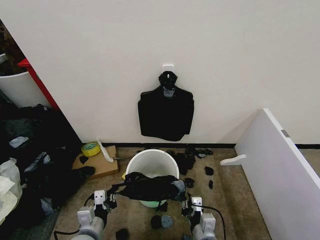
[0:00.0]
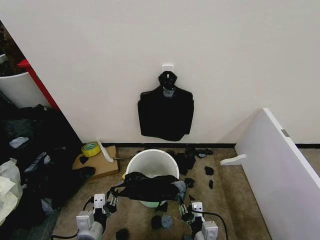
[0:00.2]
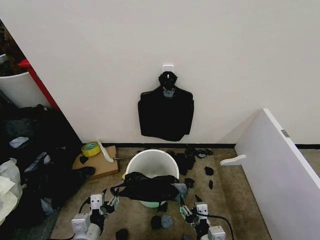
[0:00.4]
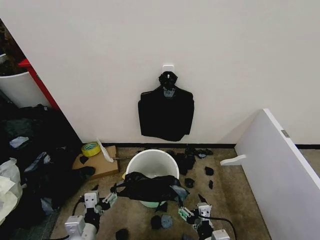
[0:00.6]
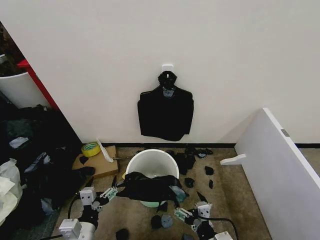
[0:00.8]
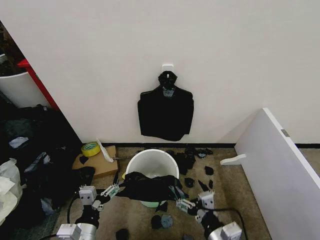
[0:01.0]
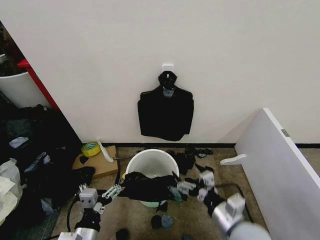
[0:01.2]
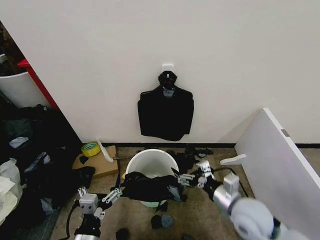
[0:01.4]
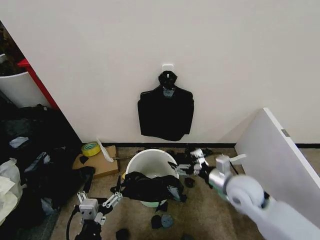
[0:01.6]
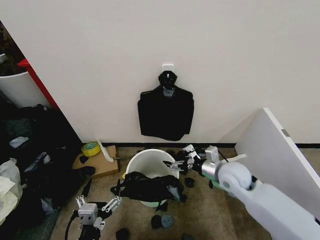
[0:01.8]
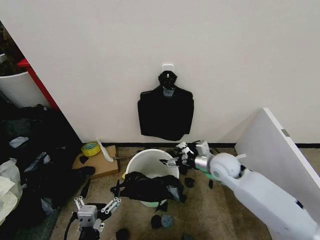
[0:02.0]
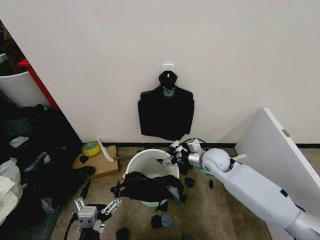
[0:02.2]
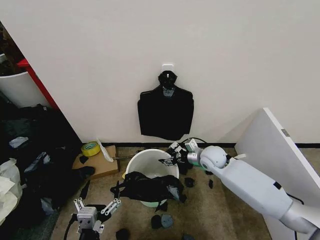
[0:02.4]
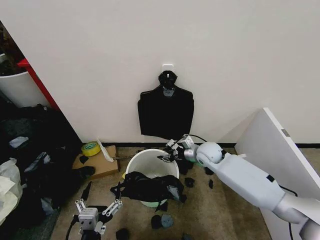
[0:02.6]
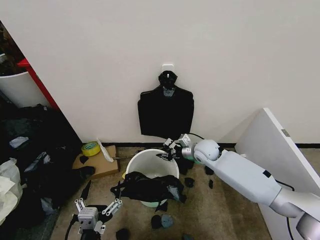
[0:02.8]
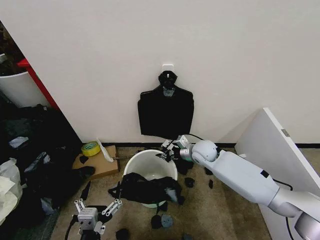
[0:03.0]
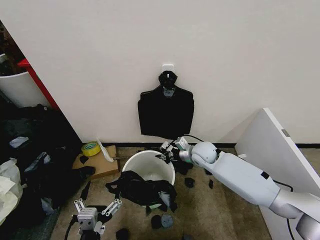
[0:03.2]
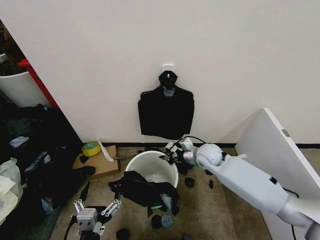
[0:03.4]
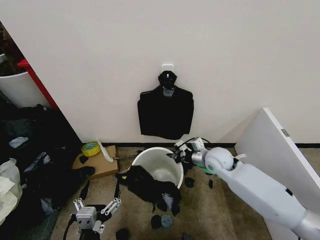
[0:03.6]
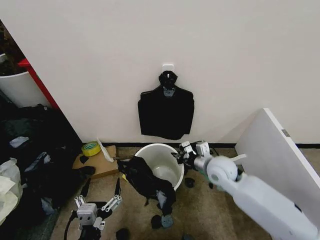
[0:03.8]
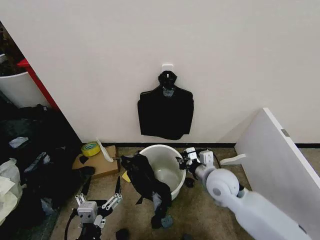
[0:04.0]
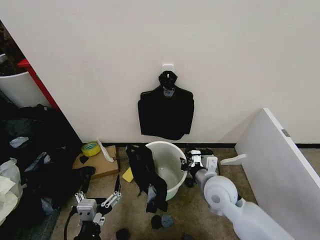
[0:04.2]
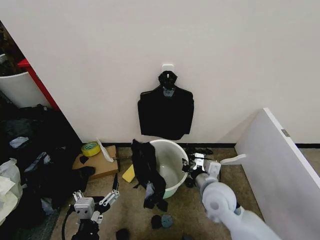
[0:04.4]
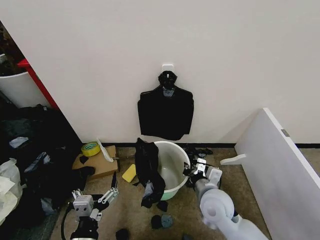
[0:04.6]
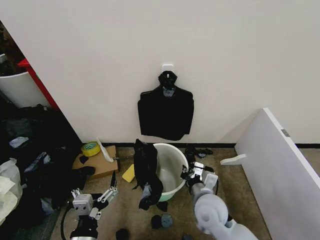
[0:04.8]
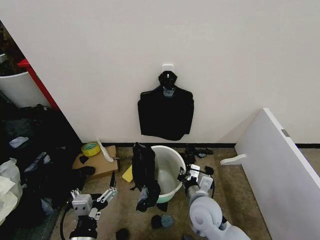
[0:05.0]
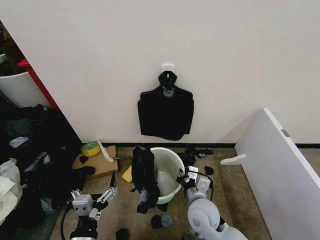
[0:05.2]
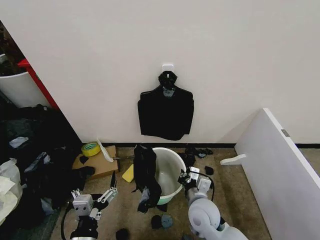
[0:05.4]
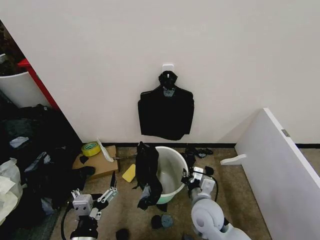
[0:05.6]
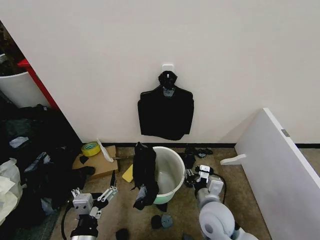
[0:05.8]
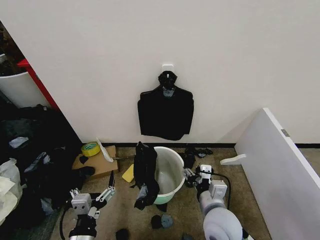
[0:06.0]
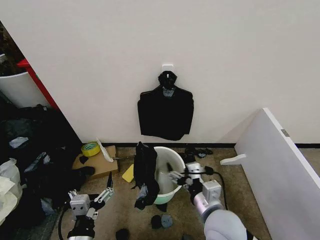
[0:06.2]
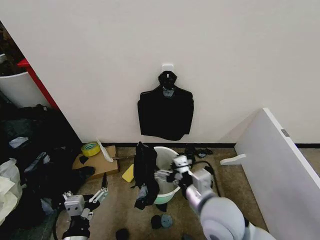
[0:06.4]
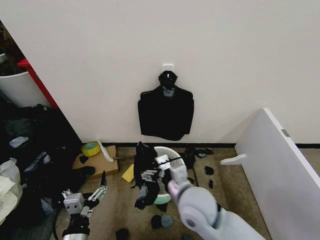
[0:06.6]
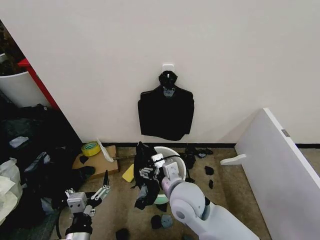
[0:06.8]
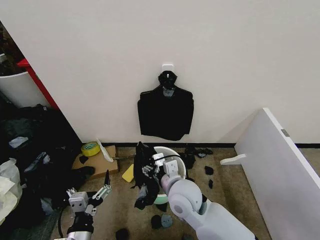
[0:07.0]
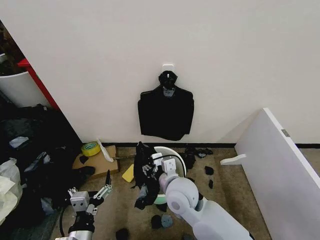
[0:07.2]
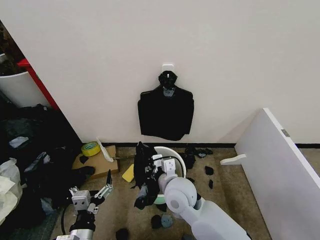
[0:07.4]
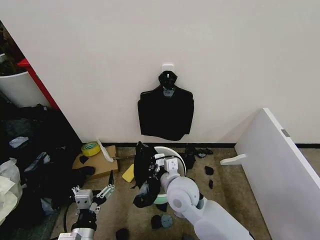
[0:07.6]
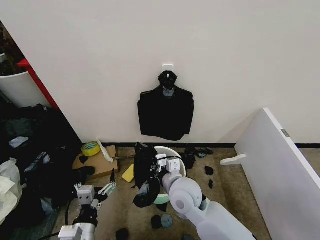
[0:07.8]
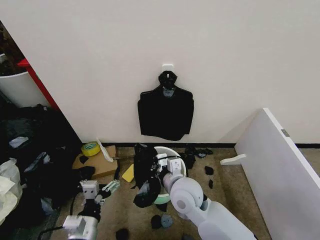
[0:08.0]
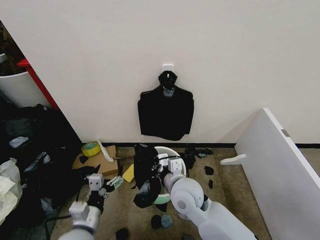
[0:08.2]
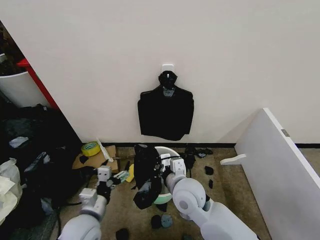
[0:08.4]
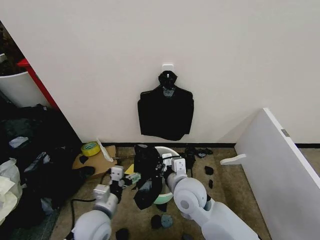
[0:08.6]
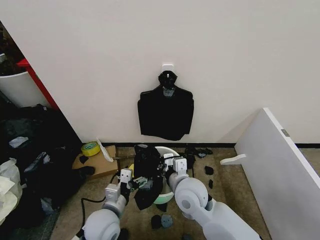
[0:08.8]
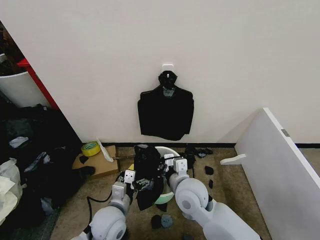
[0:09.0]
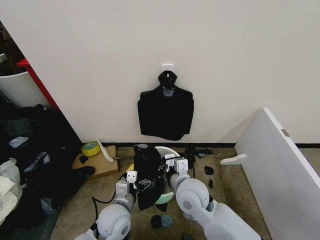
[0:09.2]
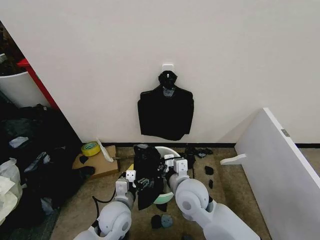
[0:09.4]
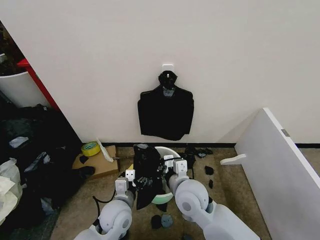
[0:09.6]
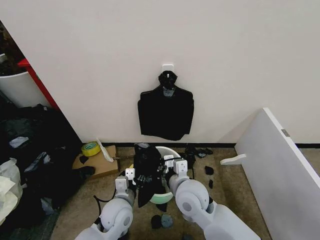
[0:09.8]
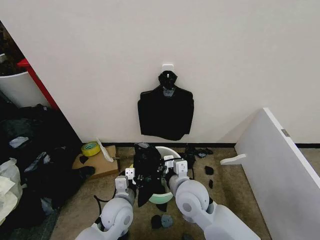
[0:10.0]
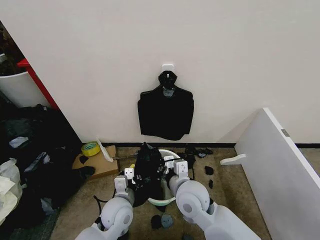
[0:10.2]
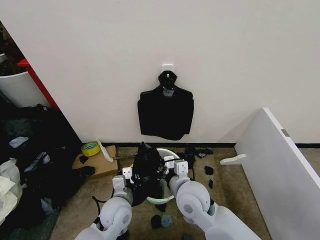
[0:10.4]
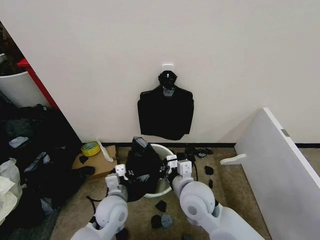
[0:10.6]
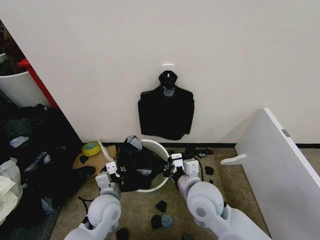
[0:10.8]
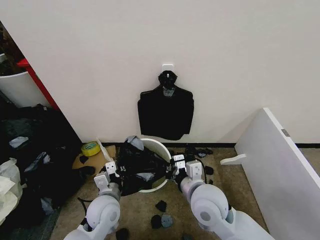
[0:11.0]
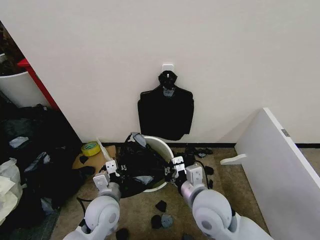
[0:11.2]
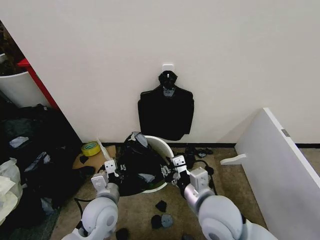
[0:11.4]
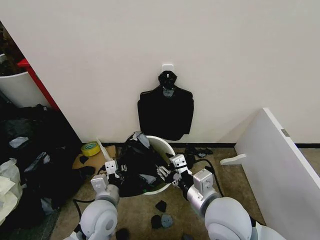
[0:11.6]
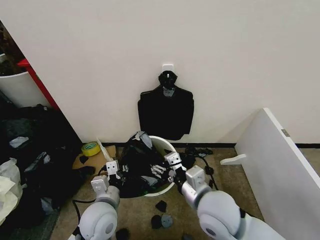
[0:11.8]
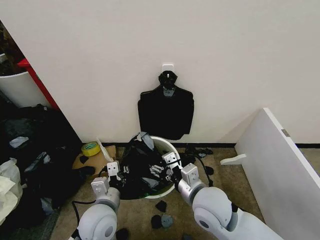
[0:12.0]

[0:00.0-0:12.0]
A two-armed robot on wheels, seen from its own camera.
Task of the whole recording: Place the garbage bag over the trash bin.
0:00.0 to 0:01.6: The right gripper shifts about 25 cm forward, upward and to the right, and opens up. Meanwhile the left gripper moves backward, about 10 cm, and opens its fingers.
0:01.6 to 0:03.0: The right gripper goes about 20 cm forward and to the left, and closes its fingers.
0:03.0 to 0:04.4: The right gripper heads backward, covering roughly 20 cm.
0:04.4 to 0:06.0: The right gripper goes roughly 5 cm backward, and opens.
0:06.0 to 0:07.6: The right gripper shifts about 15 cm to the left and forward, and closes its fingers.
0:07.6 to 0:09.0: The left gripper is displaced forward and to the right by about 15 cm.
0:09.0 to 0:10.4: The left gripper closes.
0:10.4 to 0:12.0: The left gripper goes roughly 5 cm upward. The right gripper opens up.

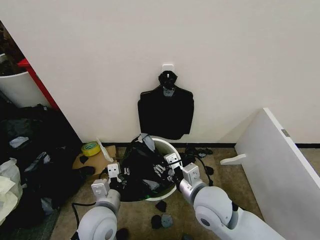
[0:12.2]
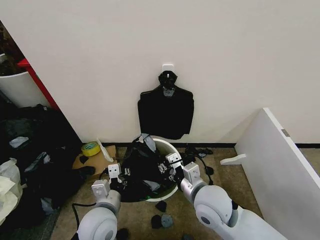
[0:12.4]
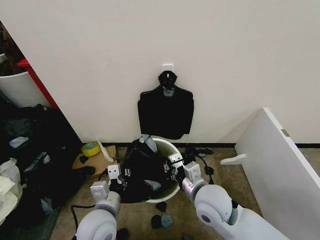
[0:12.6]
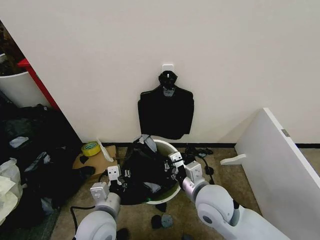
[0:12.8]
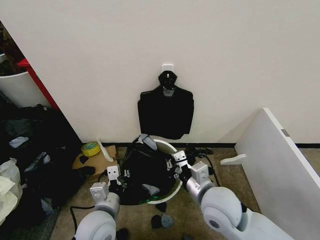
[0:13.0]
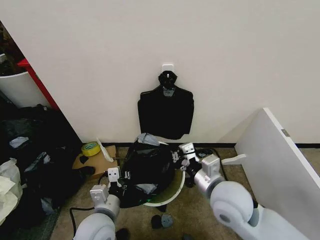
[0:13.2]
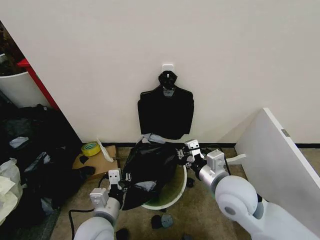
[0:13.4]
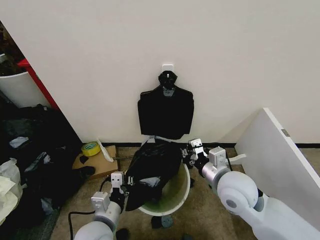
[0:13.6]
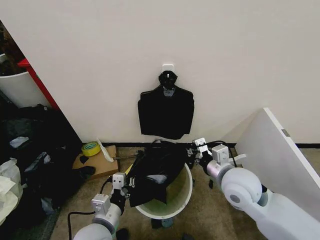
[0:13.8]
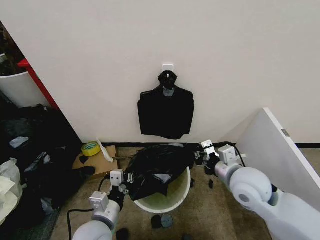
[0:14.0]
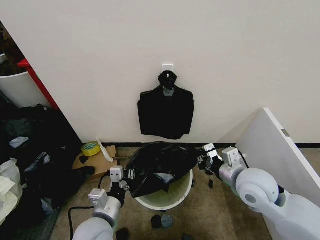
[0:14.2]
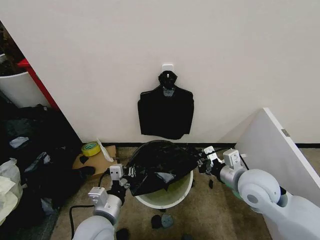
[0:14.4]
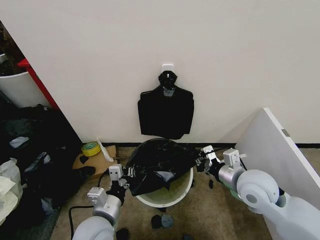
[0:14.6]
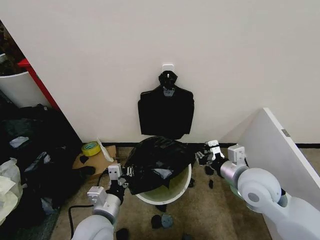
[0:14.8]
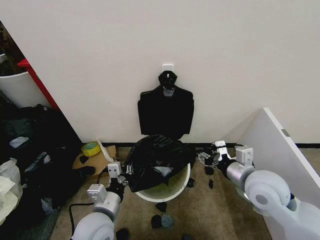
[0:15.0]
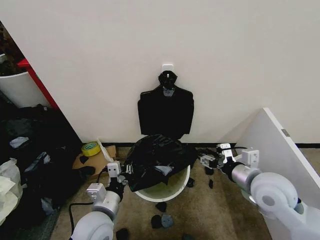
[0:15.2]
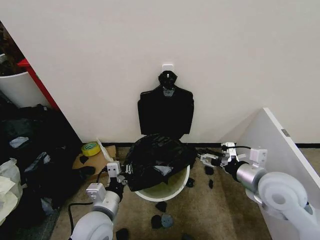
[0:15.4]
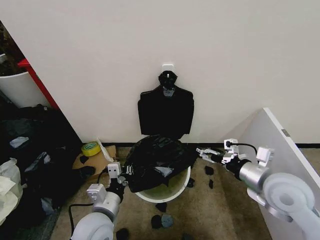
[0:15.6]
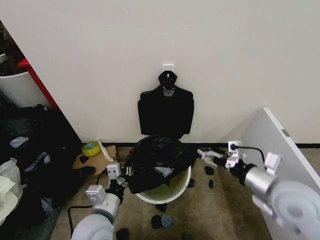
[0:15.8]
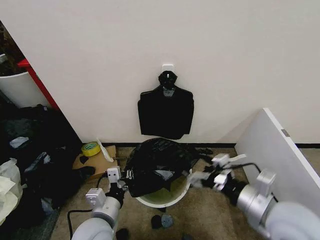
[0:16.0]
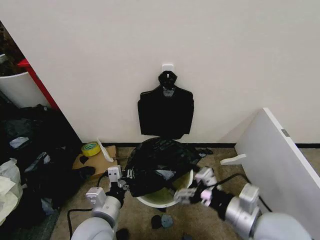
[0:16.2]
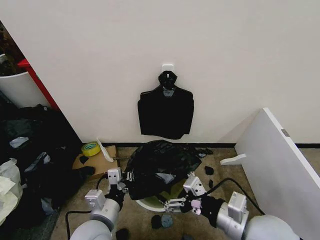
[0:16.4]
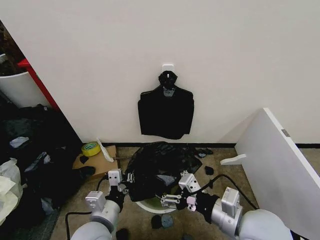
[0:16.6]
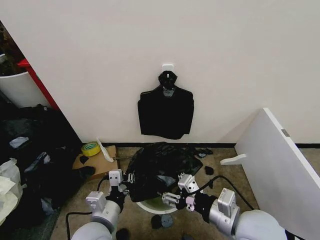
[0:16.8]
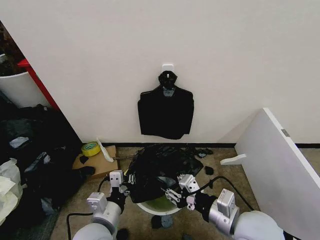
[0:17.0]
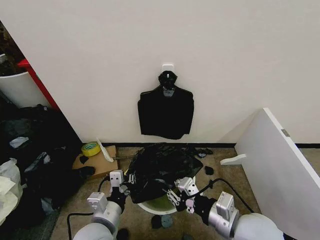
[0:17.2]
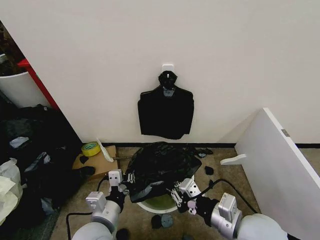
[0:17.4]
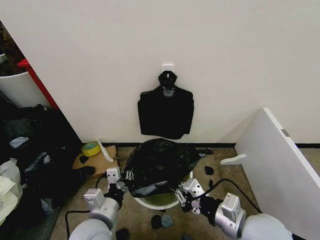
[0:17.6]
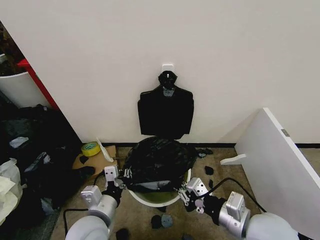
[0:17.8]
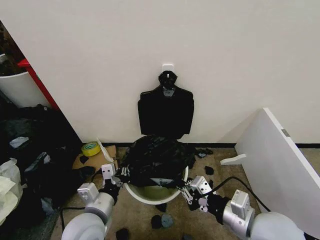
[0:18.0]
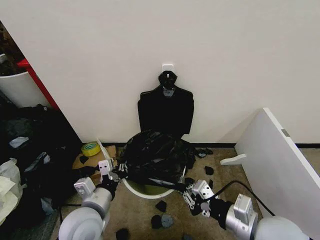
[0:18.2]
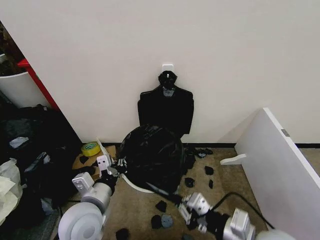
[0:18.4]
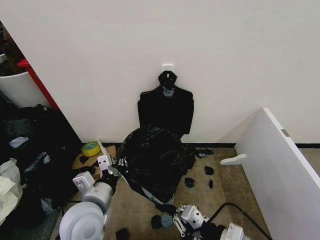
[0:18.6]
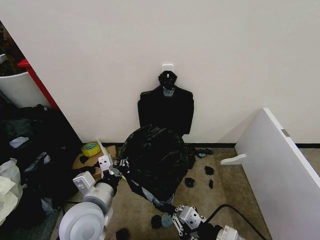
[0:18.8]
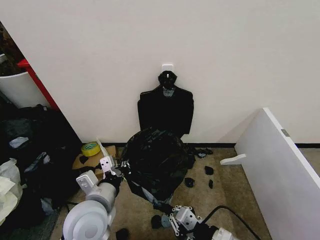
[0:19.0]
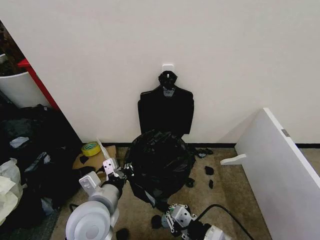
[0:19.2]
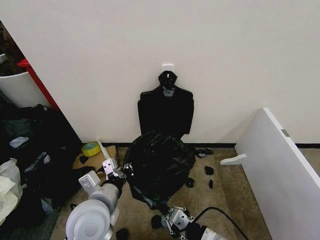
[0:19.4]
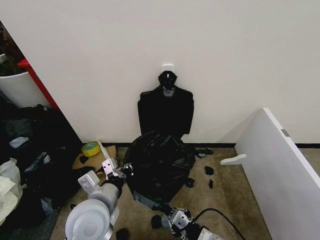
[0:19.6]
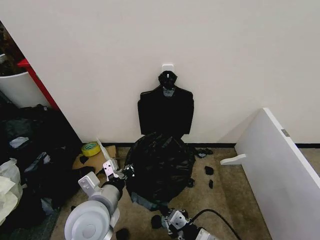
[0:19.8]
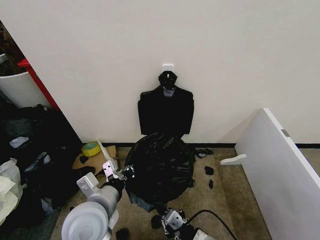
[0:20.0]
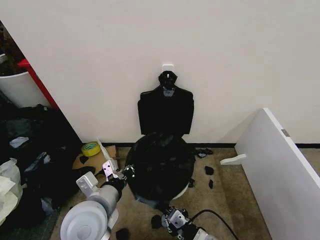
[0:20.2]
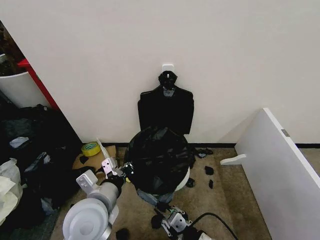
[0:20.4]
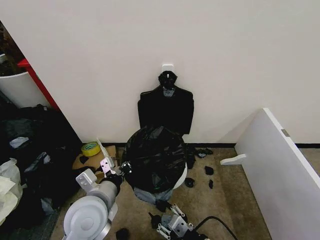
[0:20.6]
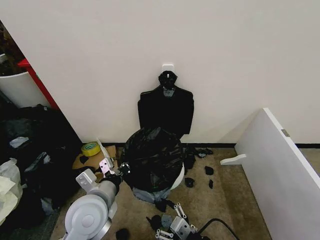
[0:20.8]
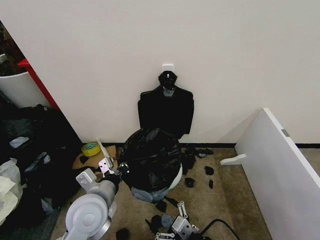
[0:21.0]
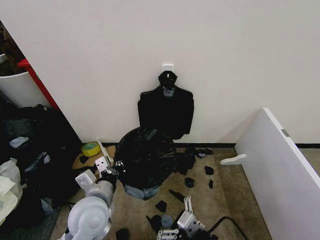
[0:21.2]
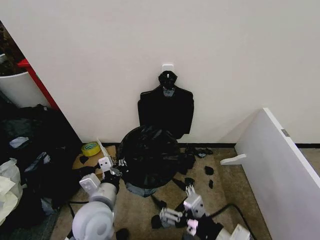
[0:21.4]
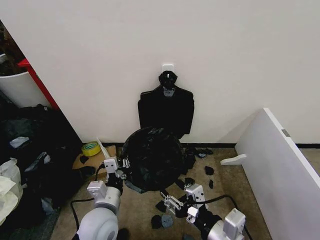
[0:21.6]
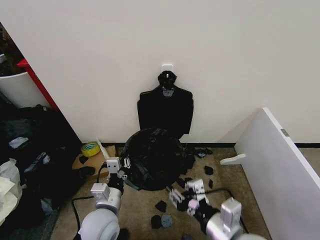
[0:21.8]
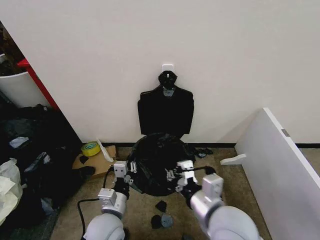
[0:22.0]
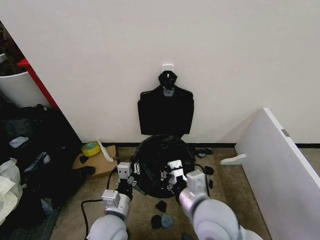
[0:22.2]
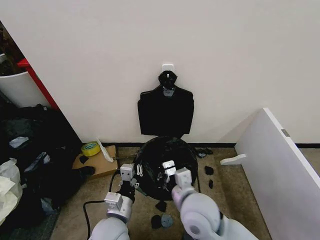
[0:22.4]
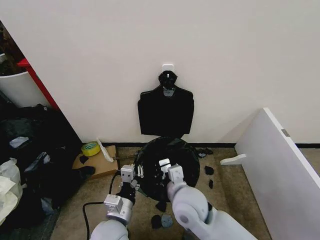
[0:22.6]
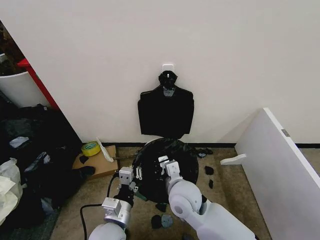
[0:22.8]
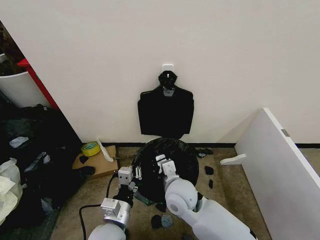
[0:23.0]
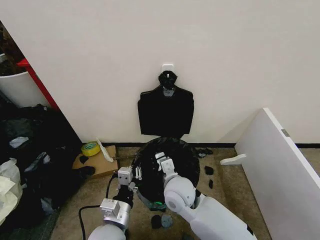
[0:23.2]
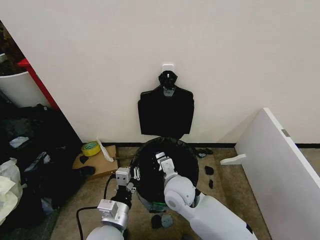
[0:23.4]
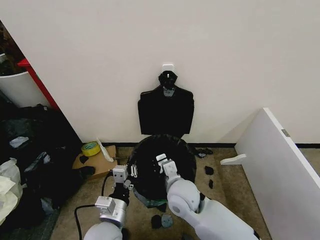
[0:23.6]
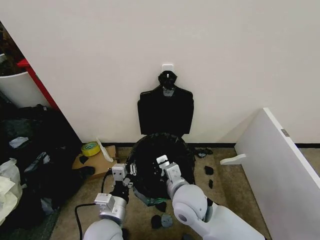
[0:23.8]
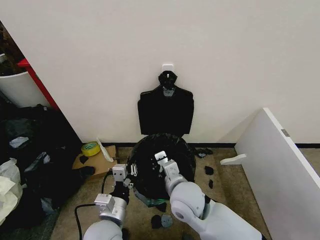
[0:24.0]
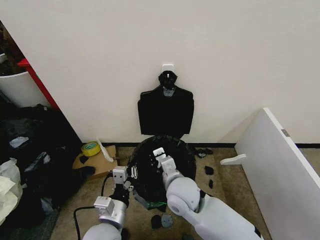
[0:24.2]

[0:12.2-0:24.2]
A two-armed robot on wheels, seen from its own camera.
Task of the whole recording: Place the garbage bag over the trash bin.
0:12.2 to 0:13.8: The right gripper is displaced to the right by roughly 10 cm, and closes up.
0:13.8 to 0:15.2: The right gripper shifts approximately 5 cm to the right, and opens.
0:15.2 to 0:16.6: The right gripper travels backward and to the left by approximately 10 cm.
0:16.6 to 0:18.2: The right gripper closes.
0:18.2 to 0:19.8: The right gripper shifts some 15 cm downward and to the left.
0:19.8 to 0:21.2: The right gripper ends up approximately 5 cm from where it was, and opens its fingers.
0:21.2 to 0:22.6: The left gripper goes roughly 5 cm downward. The right gripper travels forward and to the left by approximately 20 cm, and closes its fingers.
0:22.6 to 0:24.2: The grippers stay close to where they were, moving slightly.
